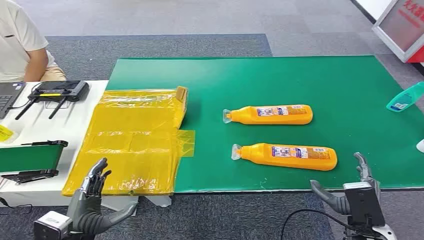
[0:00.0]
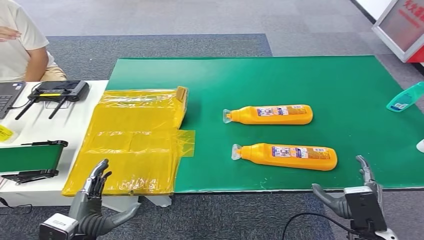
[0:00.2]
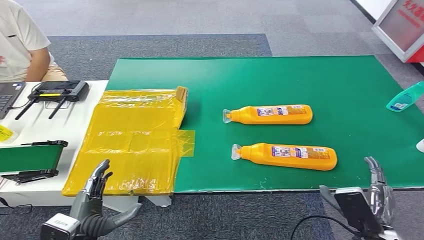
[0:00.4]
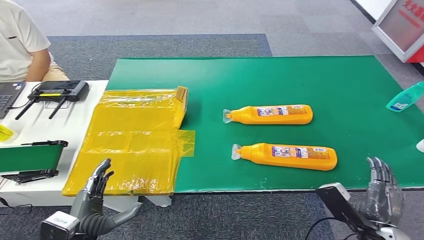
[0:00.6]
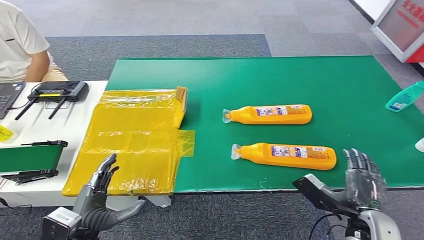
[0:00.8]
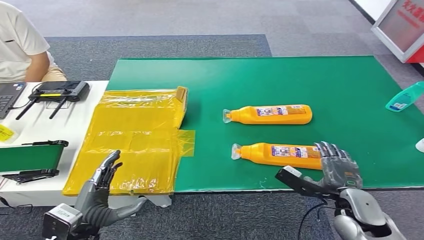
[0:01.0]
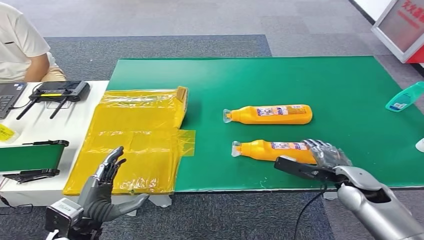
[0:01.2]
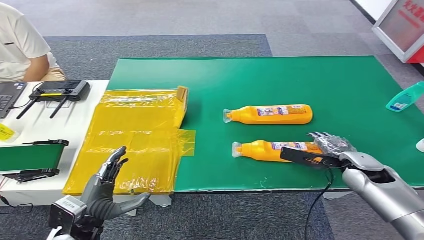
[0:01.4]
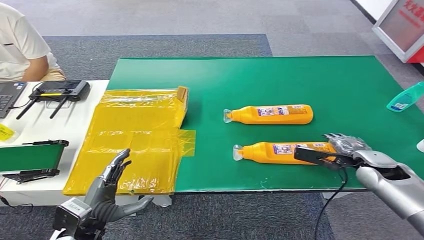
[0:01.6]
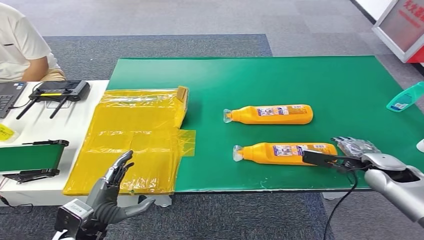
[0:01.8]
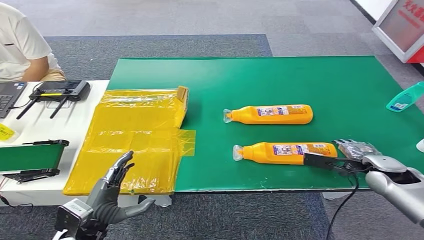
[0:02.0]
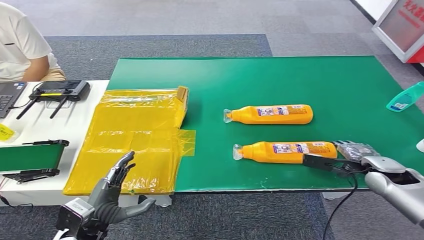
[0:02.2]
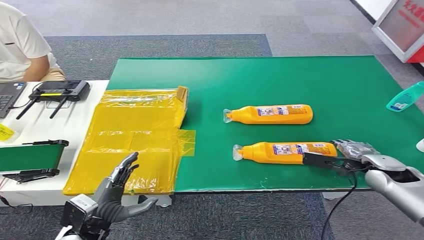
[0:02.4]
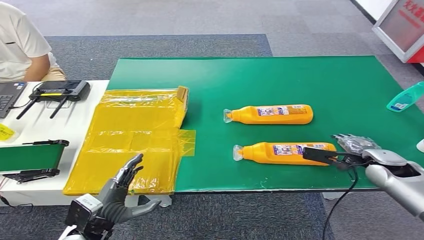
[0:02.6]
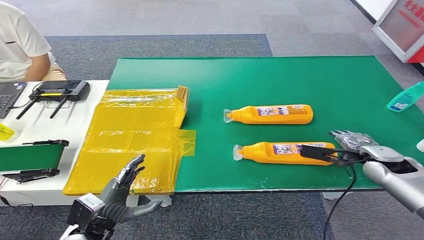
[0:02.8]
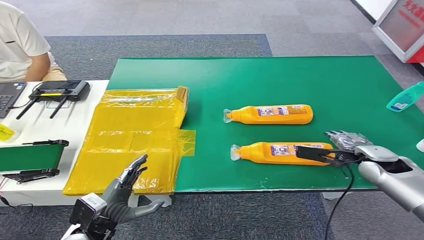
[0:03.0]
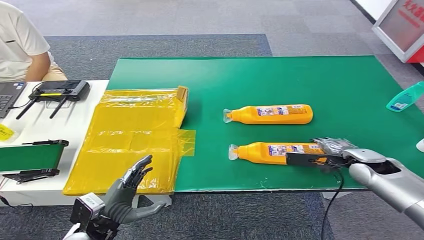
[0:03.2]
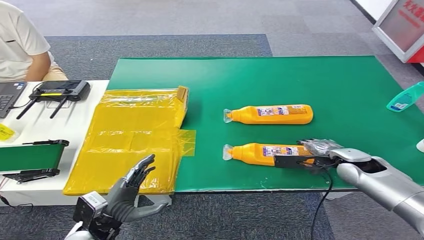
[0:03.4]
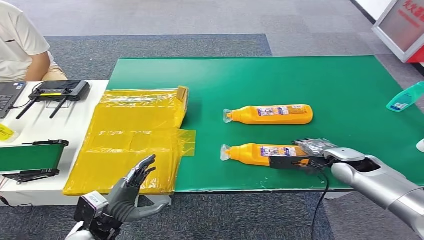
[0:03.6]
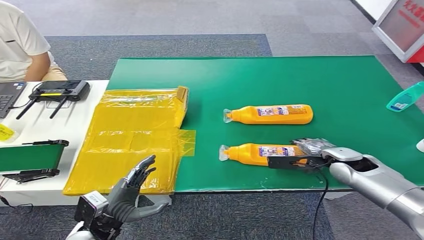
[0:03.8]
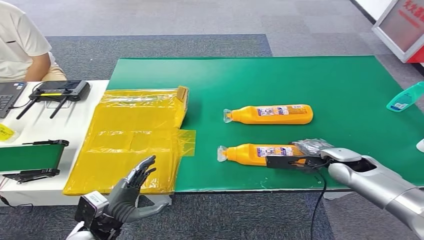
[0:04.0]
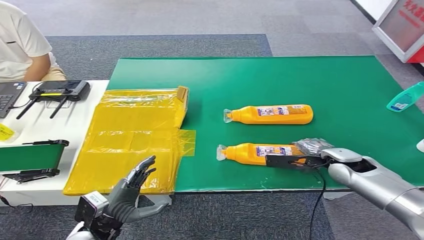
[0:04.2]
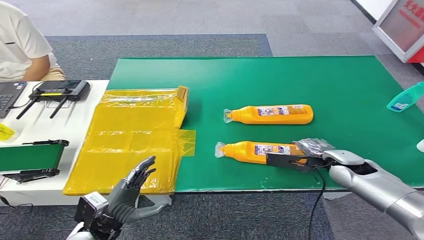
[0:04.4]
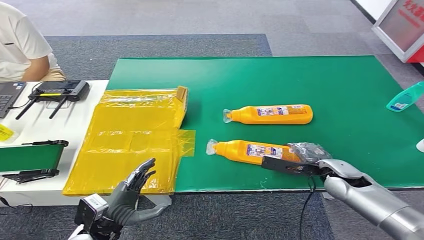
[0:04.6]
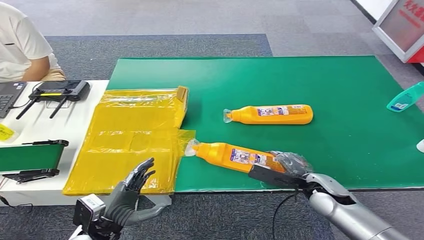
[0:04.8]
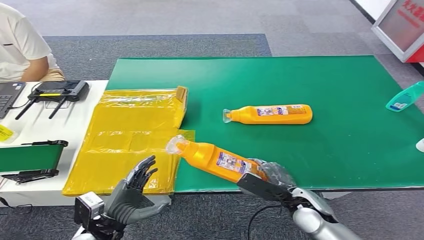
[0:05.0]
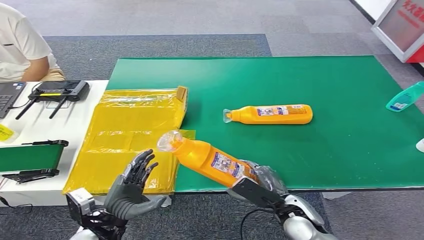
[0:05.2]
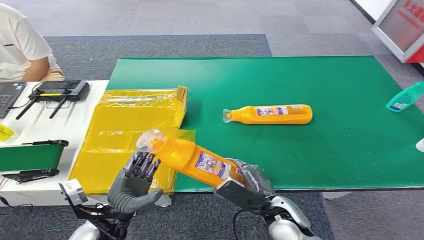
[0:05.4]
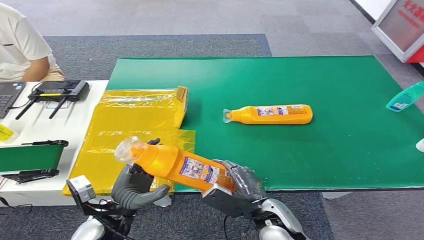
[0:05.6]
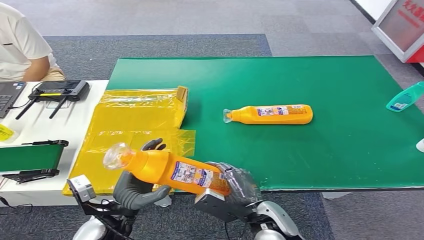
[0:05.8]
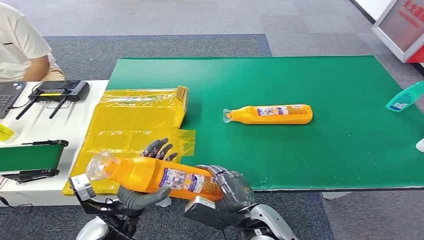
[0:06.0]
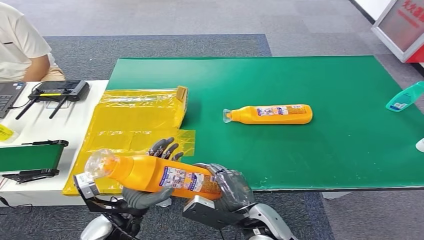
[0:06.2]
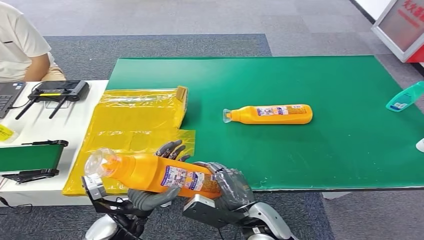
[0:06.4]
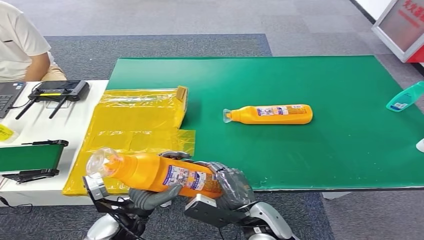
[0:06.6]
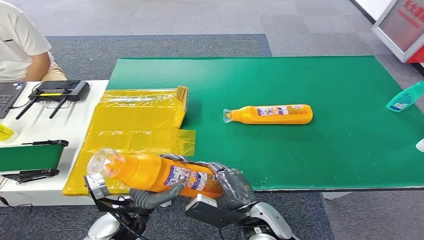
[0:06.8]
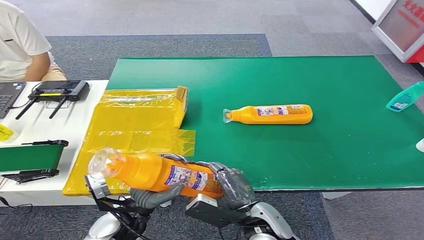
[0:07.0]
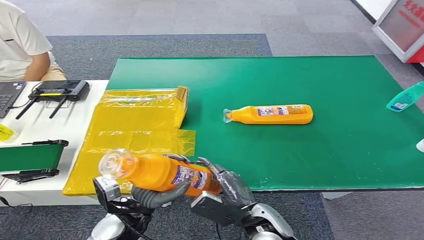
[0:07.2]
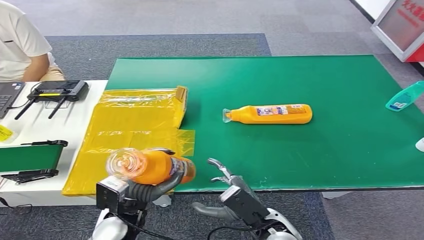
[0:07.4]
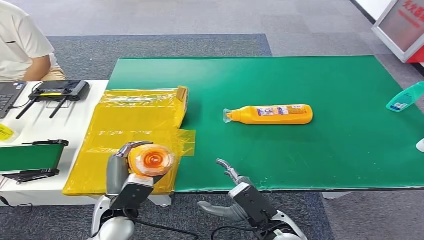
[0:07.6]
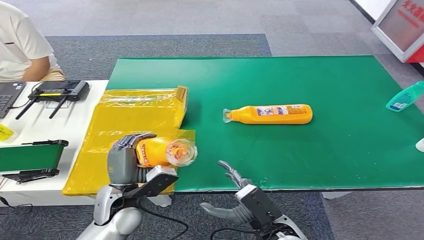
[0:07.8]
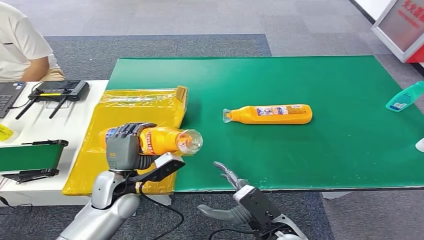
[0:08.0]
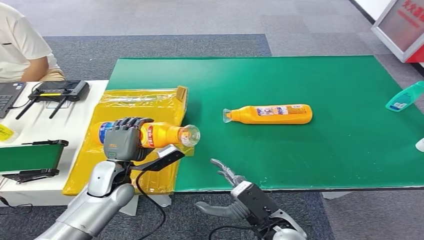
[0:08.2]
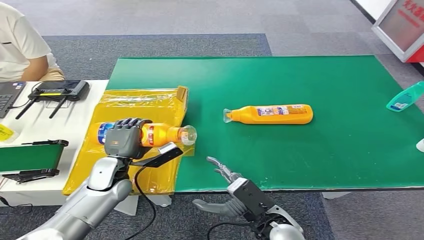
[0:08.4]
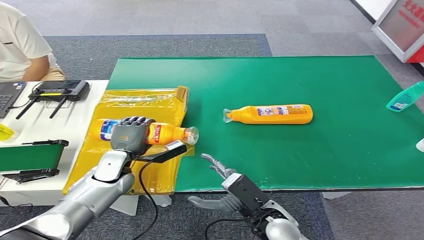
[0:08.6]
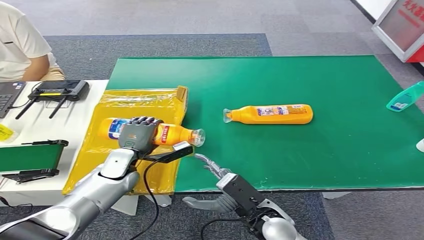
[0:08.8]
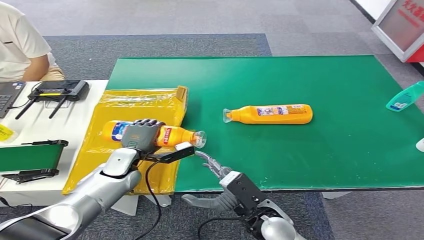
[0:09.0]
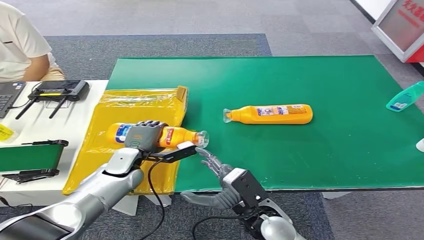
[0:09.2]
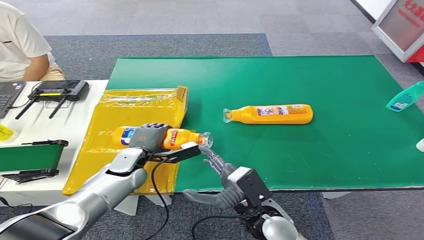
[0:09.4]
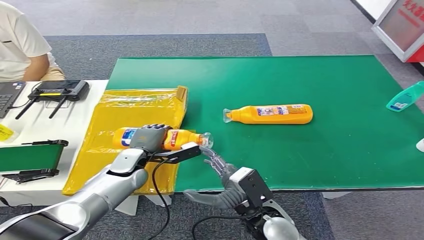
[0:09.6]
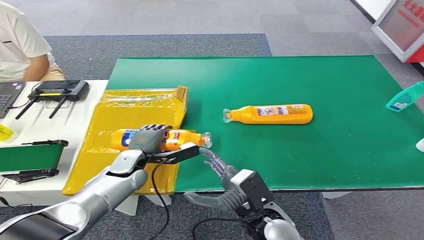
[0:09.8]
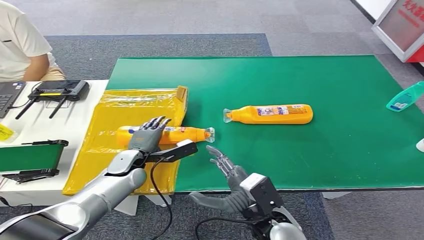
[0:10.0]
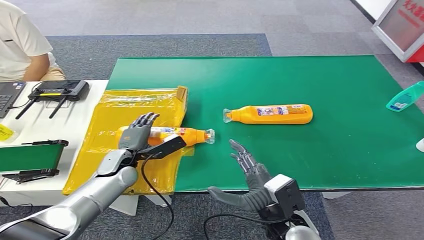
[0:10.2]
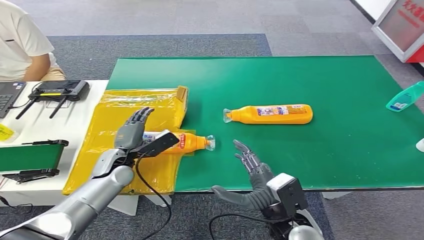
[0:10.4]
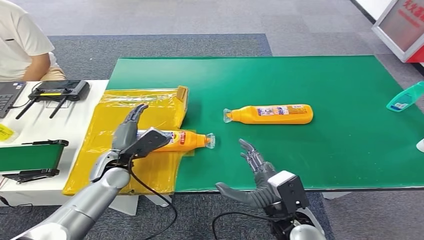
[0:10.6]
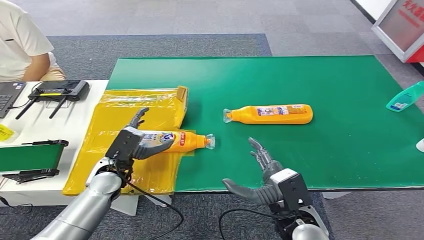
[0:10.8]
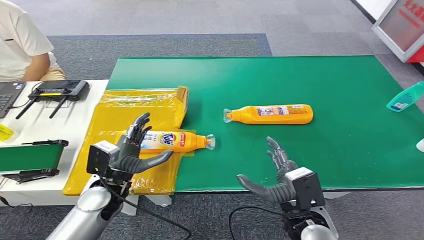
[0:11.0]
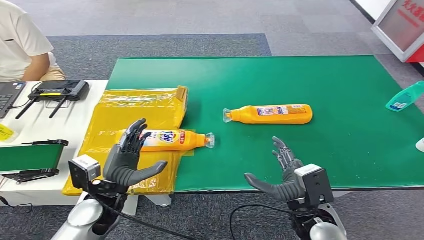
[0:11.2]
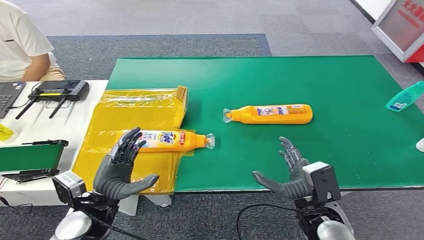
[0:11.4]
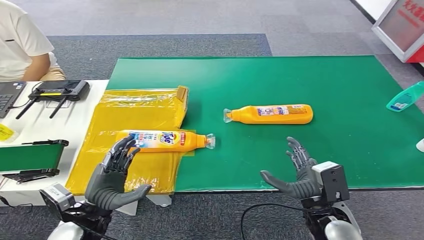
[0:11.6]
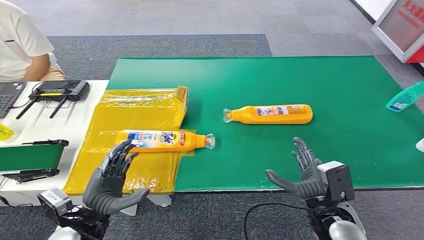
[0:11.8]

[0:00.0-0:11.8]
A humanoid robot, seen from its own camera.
Step, 0:00.0 to 0:05.4: Pick up the bottle from the table.
Step, 0:05.6 to 0:11.8: Turn the bottle to the front side.
0:01.4 to 0:03.0: The hands make only small movements.
0:03.0 to 0:04.4: The right hand goes some 5 cm to the left.
0:04.4 to 0:06.0: The right hand moves to the left and backward, roughly 25 cm. The left hand shifts about 5 cm to the right.
0:07.4 to 0:08.8: The left hand is displaced forward by some 15 cm.
0:08.8 to 0:10.4: The right hand changes place by some 5 cm.
0:10.4 to 0:11.8: The left hand heads backward, covering some 15 cm. Meanwhile the right hand shifts roughly 10 cm to the right.
